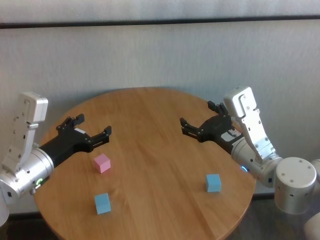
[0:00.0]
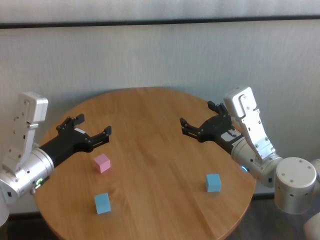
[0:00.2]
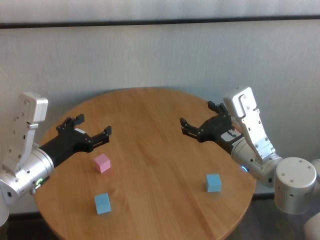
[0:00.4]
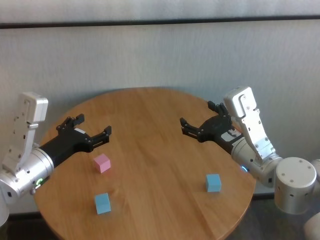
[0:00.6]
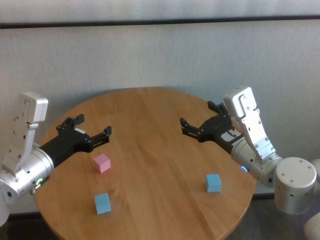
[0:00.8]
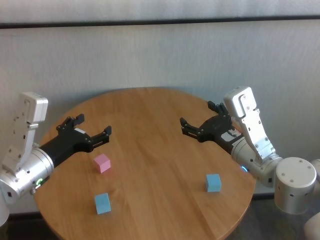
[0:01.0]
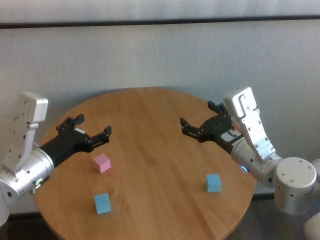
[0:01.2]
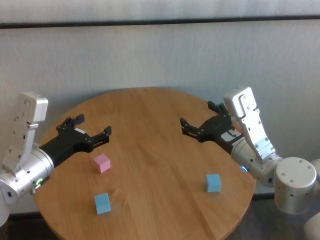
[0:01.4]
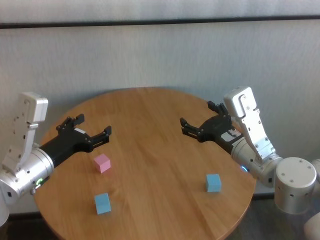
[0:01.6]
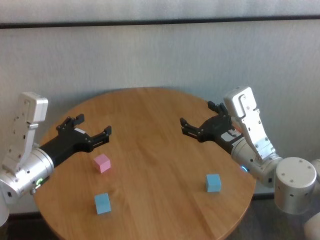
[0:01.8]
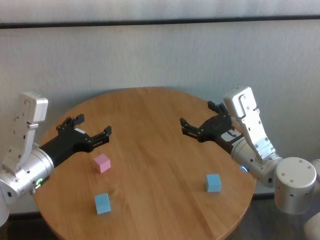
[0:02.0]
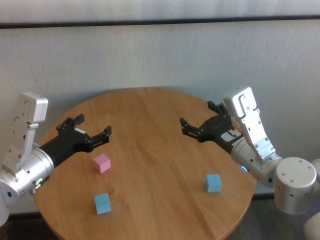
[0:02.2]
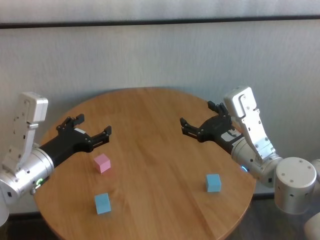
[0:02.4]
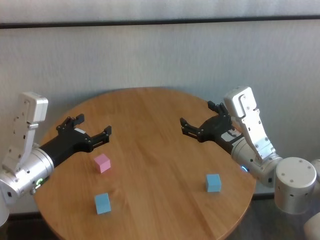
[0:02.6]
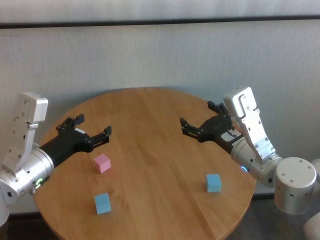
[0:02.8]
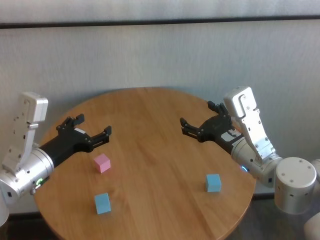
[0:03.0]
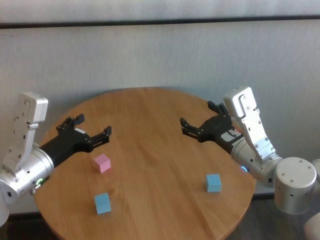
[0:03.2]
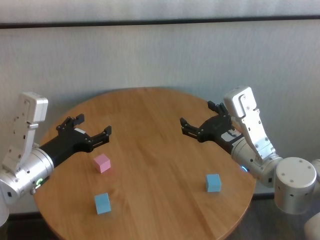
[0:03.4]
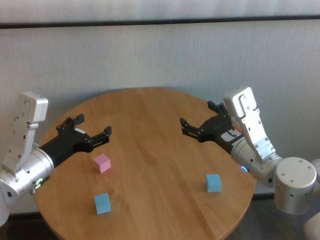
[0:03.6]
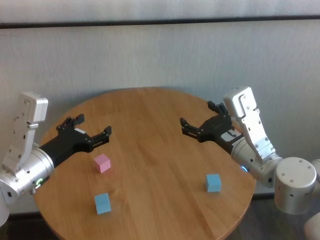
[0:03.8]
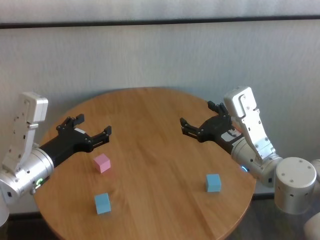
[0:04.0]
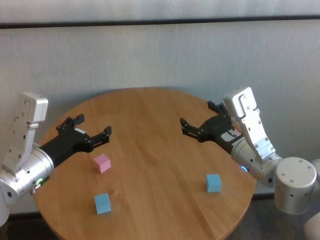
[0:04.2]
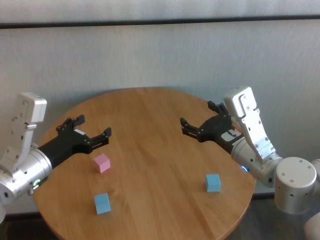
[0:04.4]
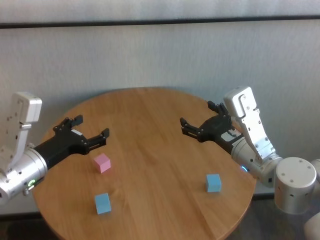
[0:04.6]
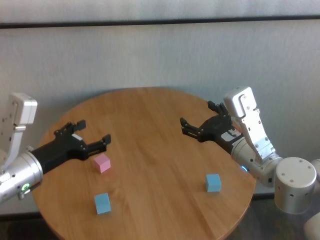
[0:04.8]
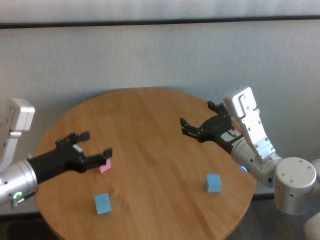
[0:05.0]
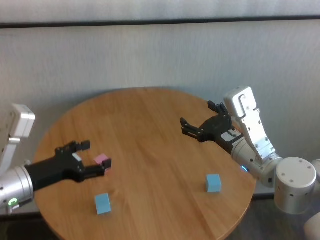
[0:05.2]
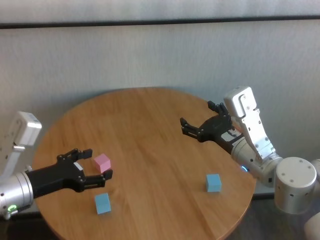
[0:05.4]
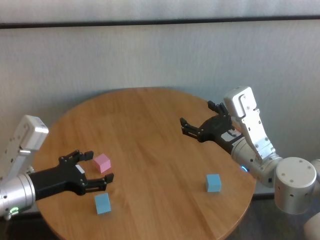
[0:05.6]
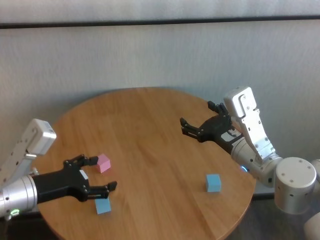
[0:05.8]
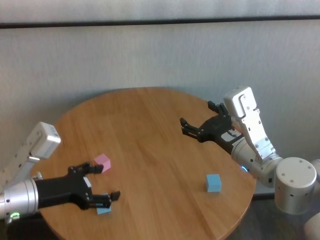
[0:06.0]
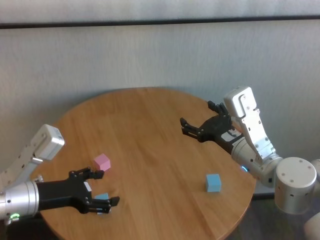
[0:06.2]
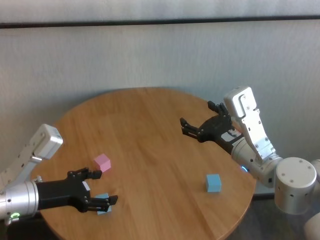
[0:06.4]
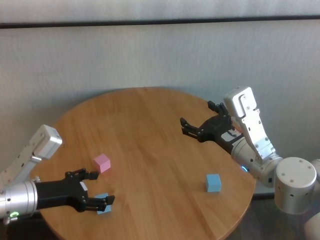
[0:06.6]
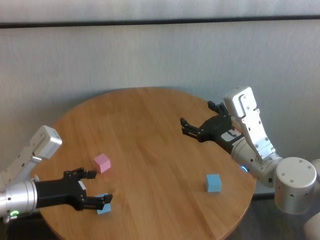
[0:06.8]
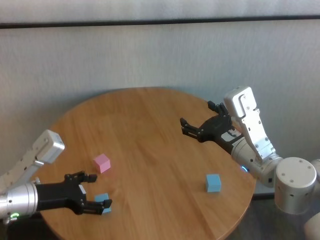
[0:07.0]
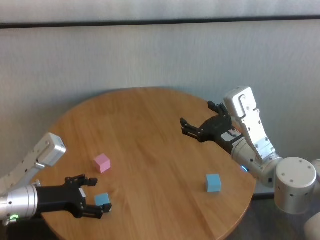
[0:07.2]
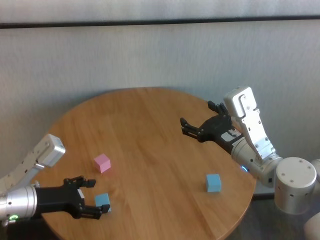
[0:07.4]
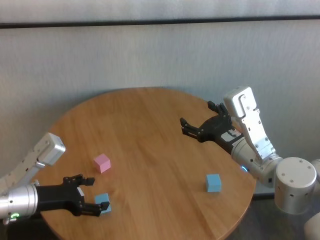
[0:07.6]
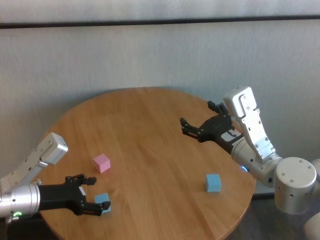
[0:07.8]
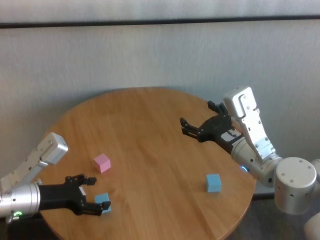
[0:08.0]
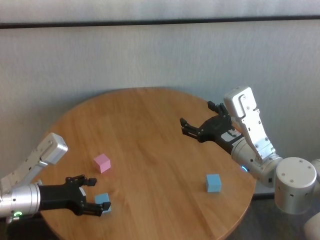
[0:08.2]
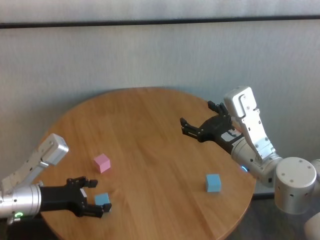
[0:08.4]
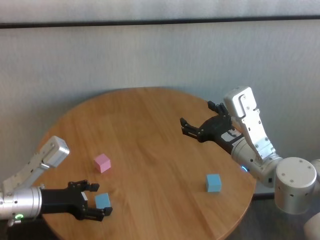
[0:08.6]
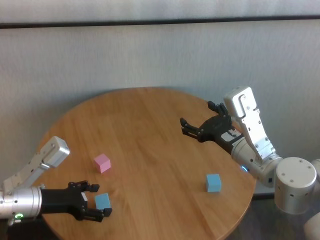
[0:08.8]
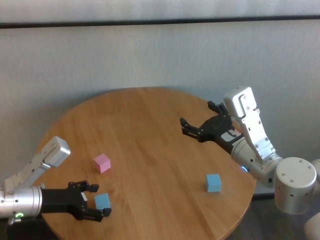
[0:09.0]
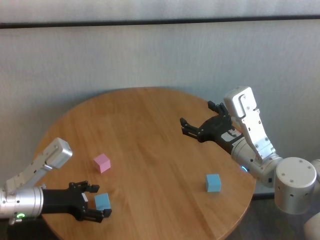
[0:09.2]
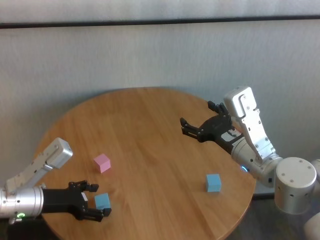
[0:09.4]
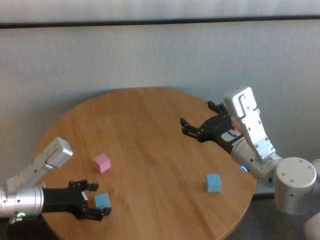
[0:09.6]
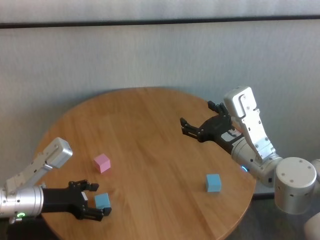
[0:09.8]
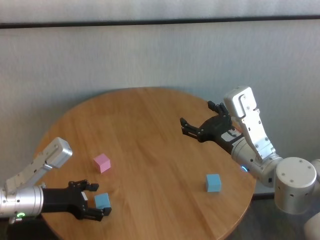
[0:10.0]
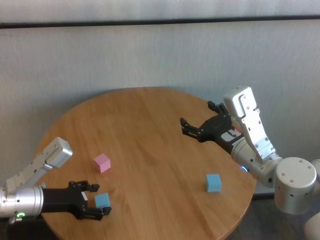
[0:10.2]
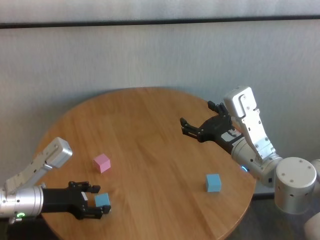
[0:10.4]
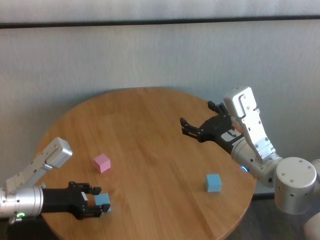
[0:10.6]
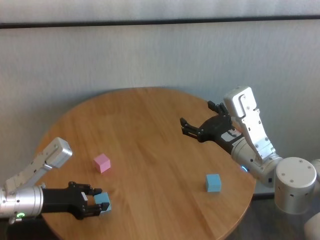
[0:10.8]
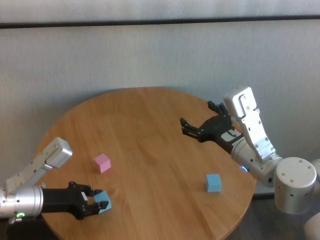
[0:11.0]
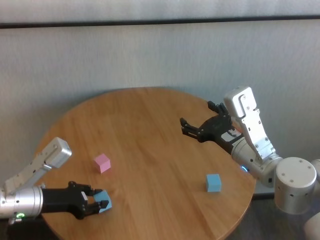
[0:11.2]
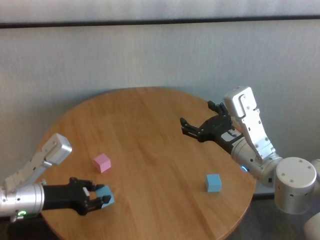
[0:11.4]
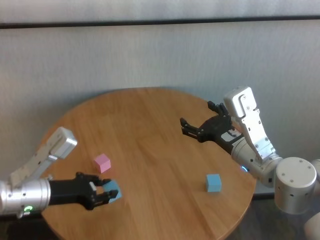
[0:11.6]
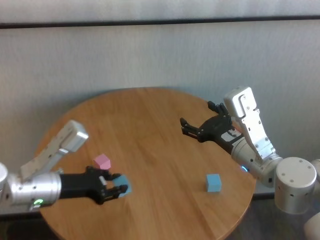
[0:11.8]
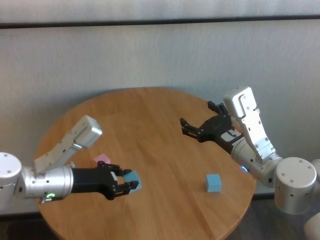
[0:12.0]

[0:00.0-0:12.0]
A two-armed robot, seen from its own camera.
Task of the whole recording: stack building blocks on the table.
Step, 0:00.0 to 0:10.8: Grasp the blue building block with left gripper.

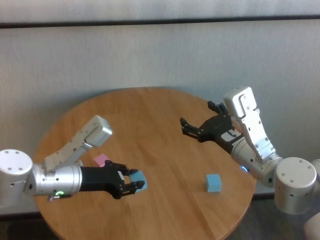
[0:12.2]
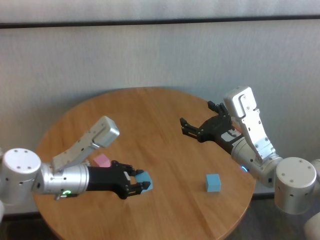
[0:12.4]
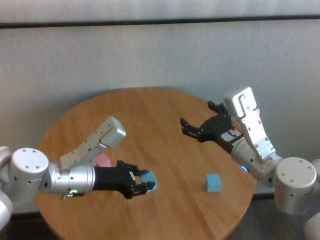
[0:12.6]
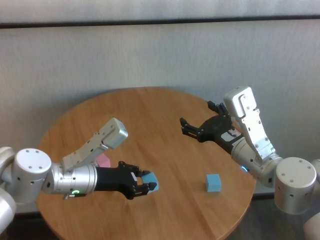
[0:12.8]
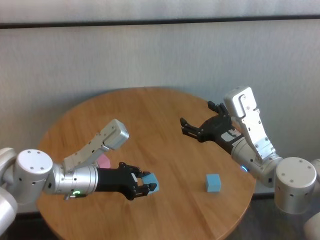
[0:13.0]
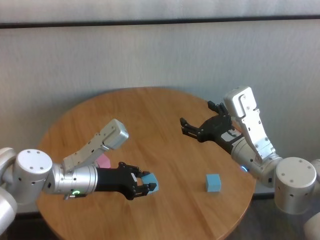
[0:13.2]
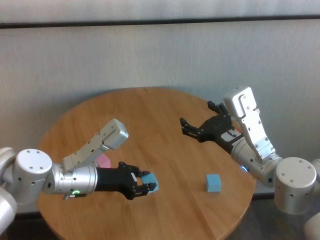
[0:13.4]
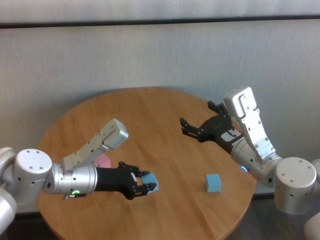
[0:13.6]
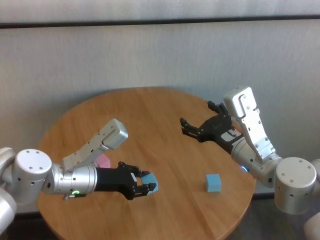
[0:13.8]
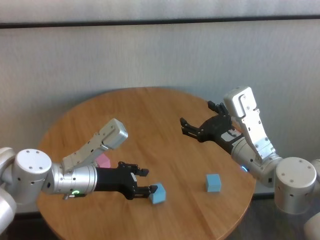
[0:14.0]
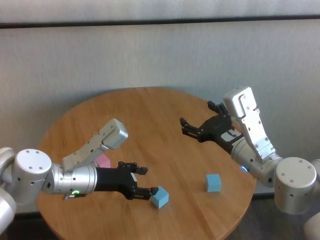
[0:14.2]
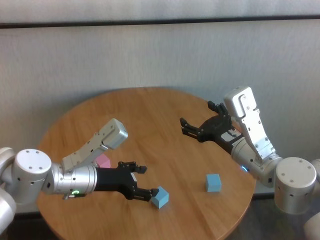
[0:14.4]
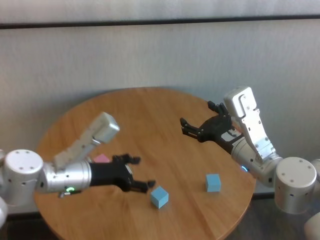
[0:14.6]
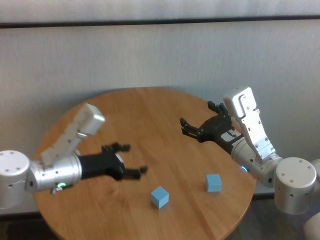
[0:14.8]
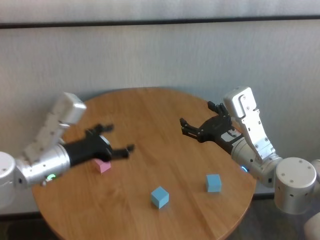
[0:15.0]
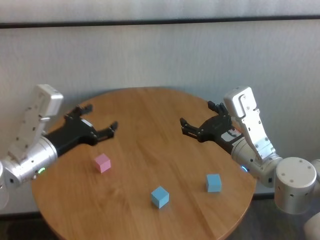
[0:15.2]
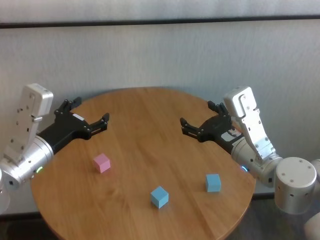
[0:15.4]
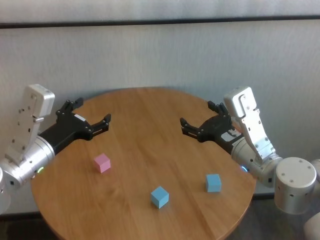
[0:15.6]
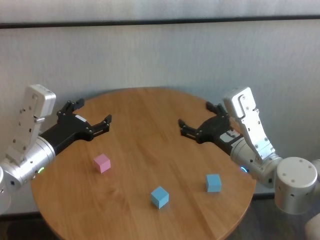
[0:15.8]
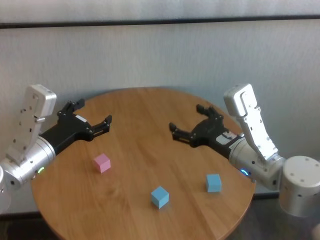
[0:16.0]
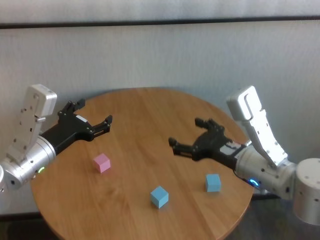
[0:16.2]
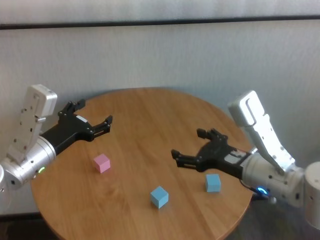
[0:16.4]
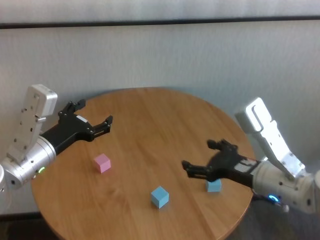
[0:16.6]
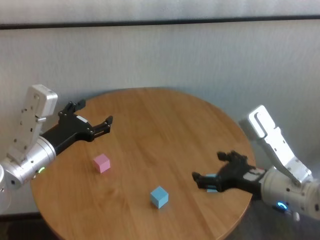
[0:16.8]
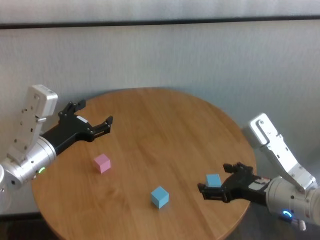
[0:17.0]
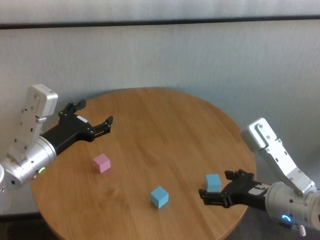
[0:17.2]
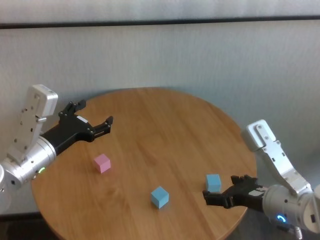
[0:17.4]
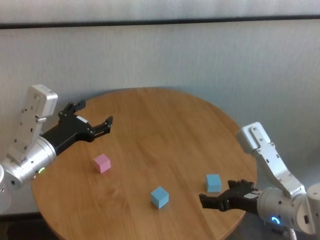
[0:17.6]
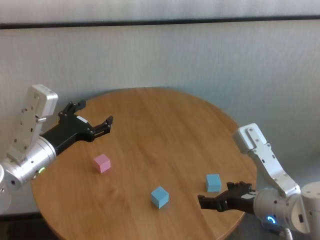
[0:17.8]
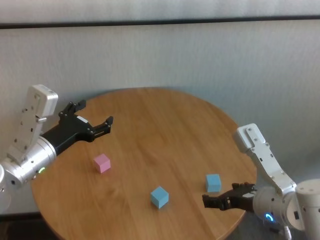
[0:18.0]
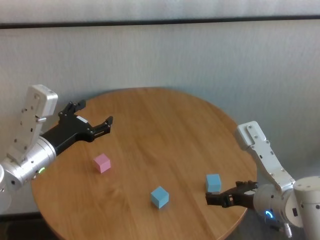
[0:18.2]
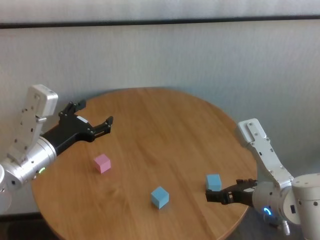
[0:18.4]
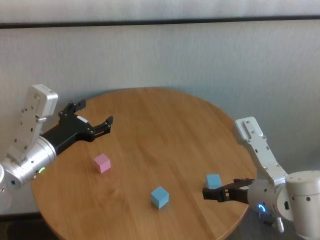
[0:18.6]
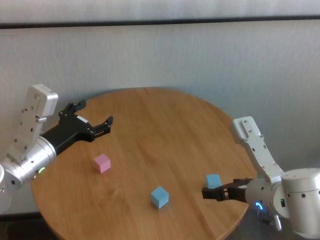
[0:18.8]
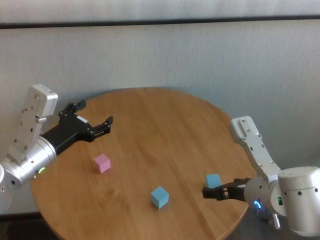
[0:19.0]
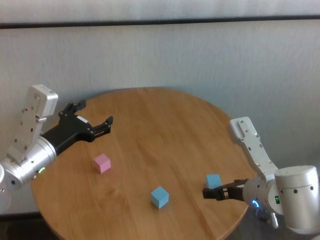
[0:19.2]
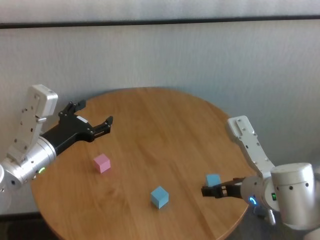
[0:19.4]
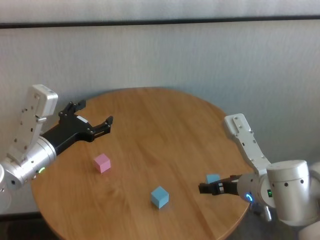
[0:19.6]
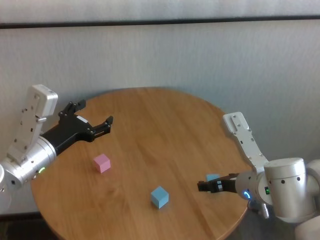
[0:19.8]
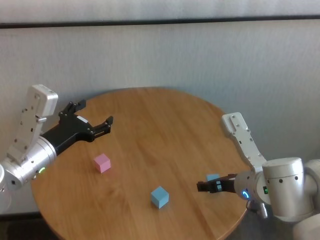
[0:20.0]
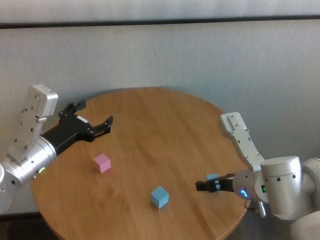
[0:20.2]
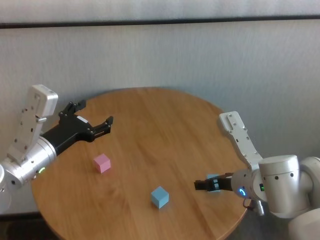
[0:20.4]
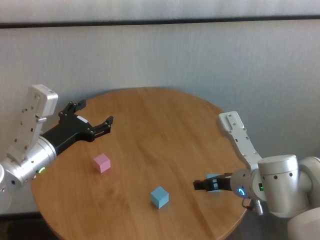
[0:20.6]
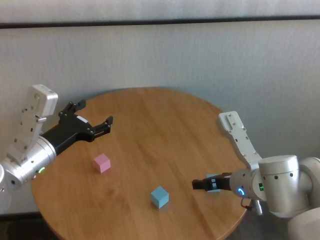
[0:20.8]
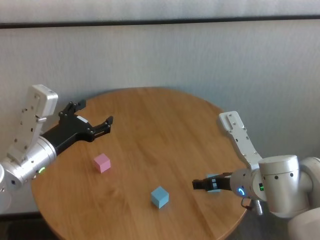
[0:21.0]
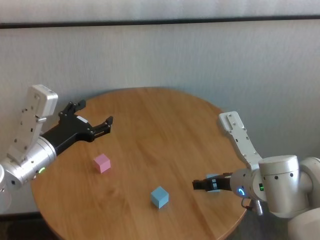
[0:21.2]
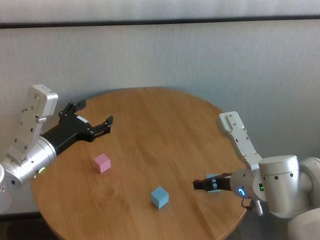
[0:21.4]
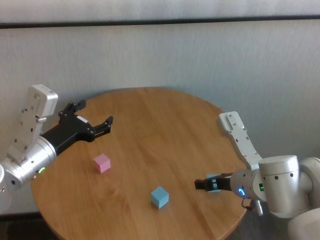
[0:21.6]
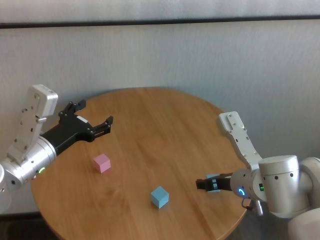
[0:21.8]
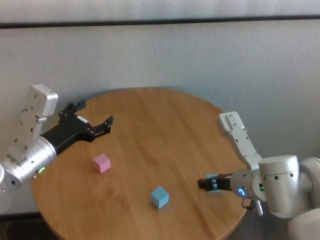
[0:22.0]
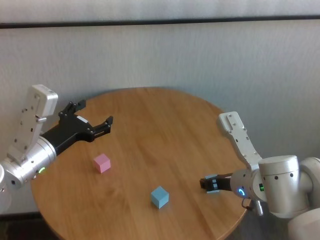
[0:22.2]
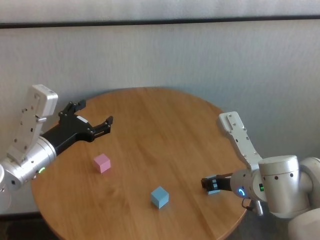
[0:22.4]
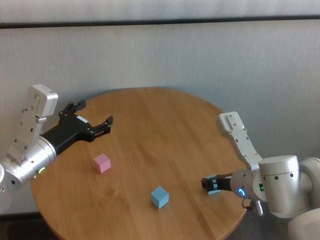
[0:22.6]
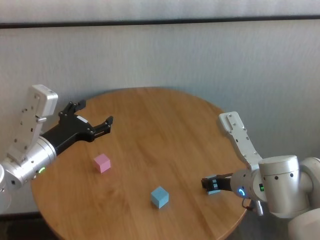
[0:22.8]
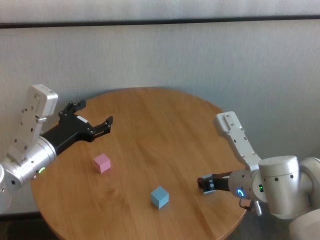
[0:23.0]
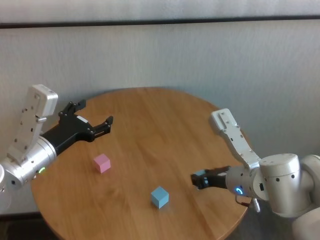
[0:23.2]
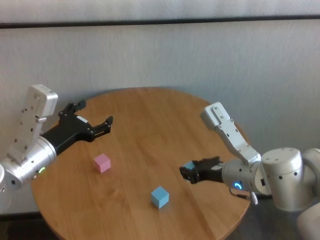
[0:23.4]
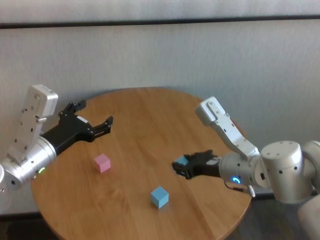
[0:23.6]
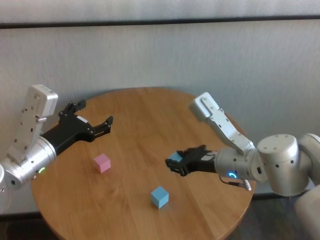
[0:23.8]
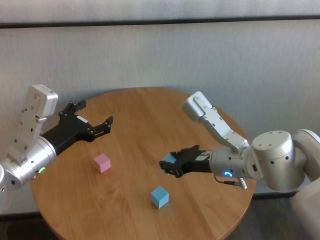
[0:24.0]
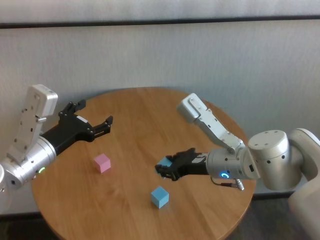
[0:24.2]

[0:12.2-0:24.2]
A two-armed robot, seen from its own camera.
Task of the whole recording: stack building blocks on the table.
Step, 0:12.2 to 0:14.2: Place the blue building block in the center of table with left gripper.
Step, 0:14.4 to 0:22.2: Grasp the blue building block with right gripper.
